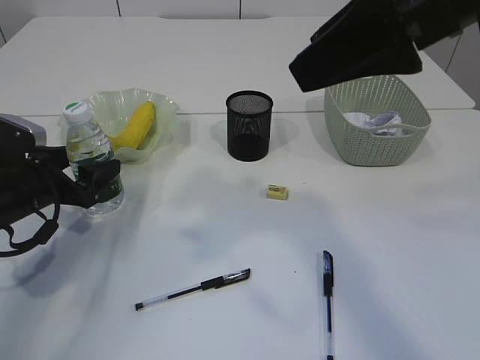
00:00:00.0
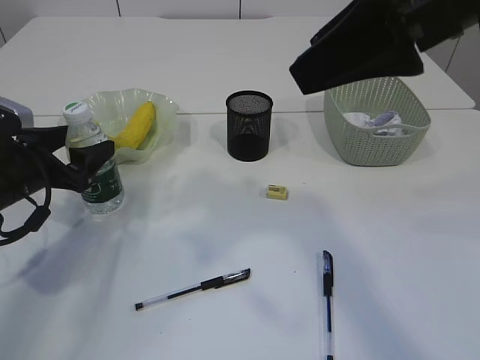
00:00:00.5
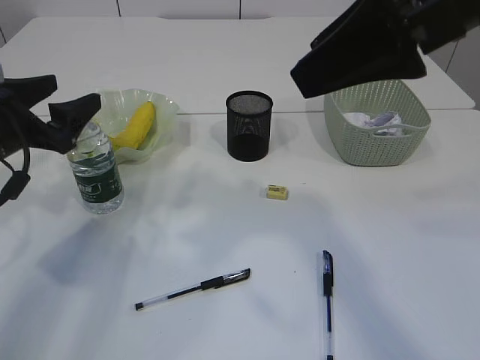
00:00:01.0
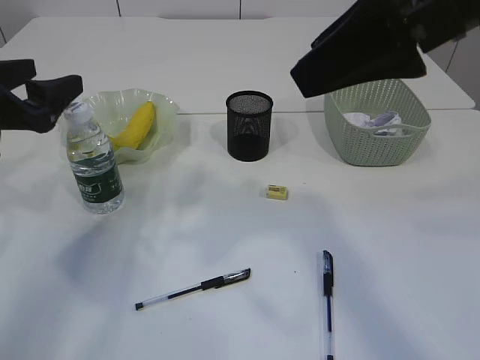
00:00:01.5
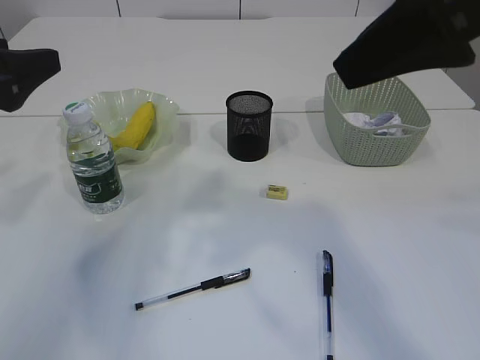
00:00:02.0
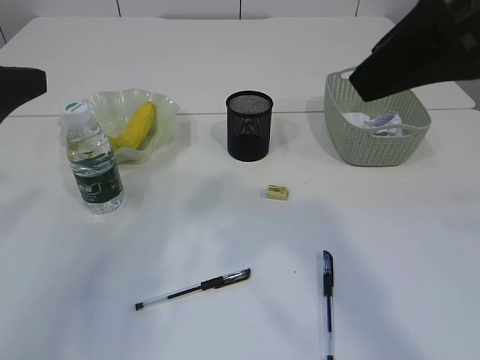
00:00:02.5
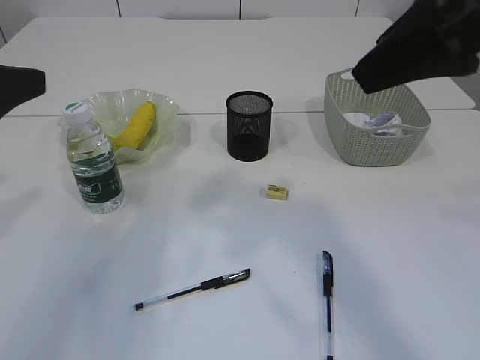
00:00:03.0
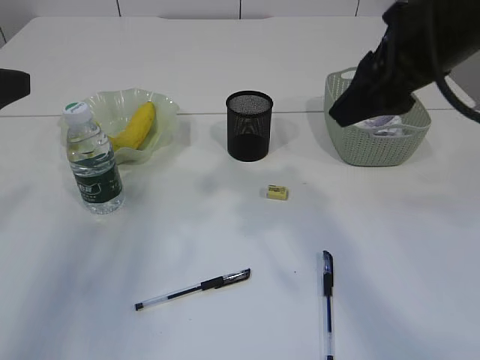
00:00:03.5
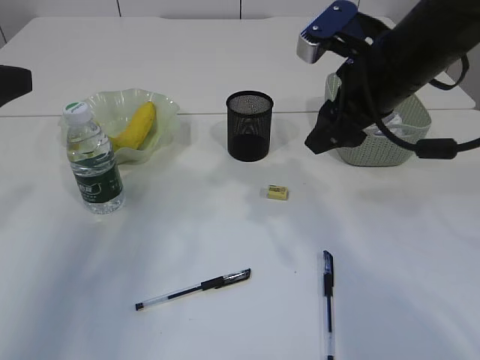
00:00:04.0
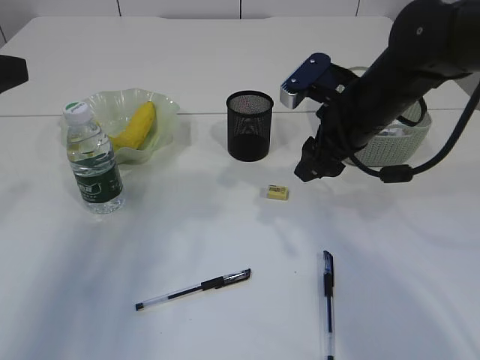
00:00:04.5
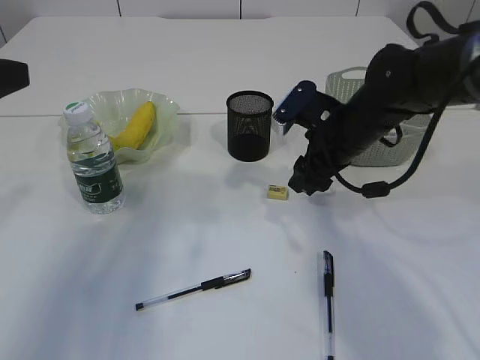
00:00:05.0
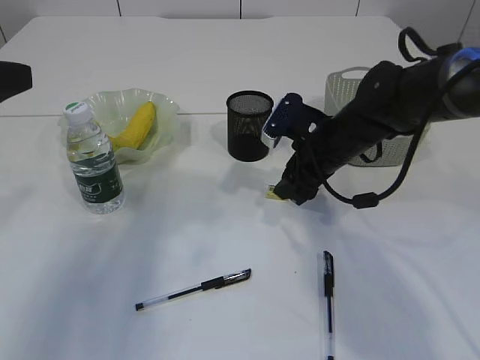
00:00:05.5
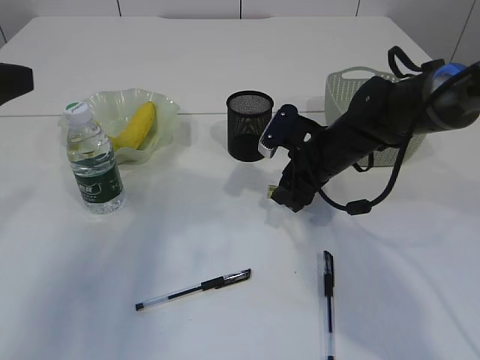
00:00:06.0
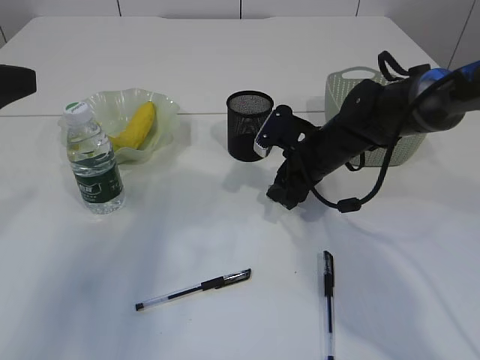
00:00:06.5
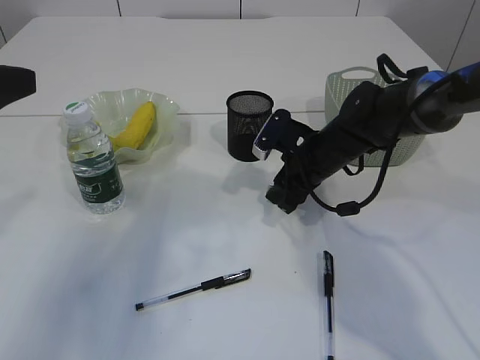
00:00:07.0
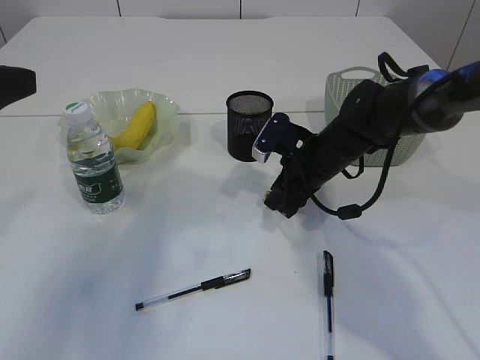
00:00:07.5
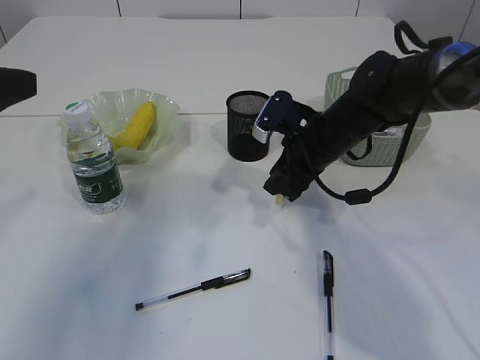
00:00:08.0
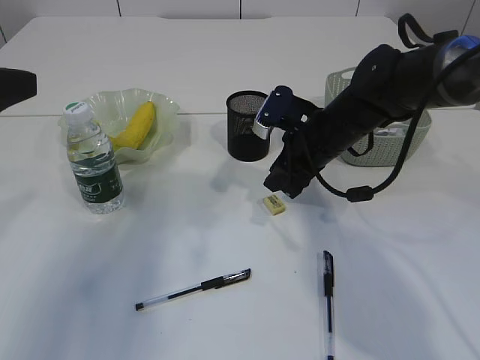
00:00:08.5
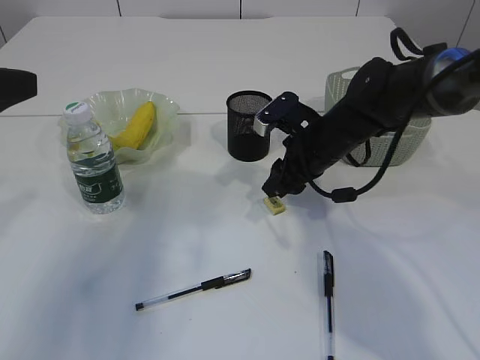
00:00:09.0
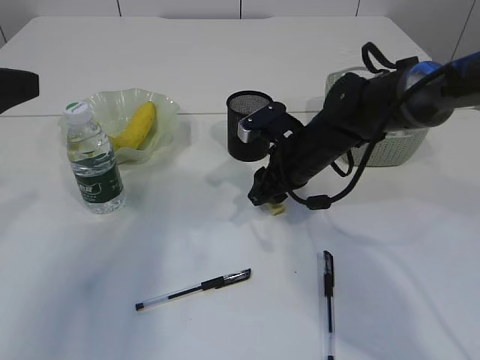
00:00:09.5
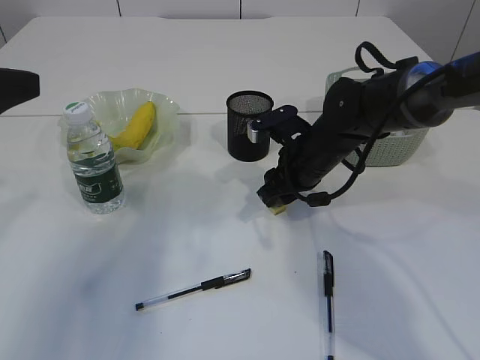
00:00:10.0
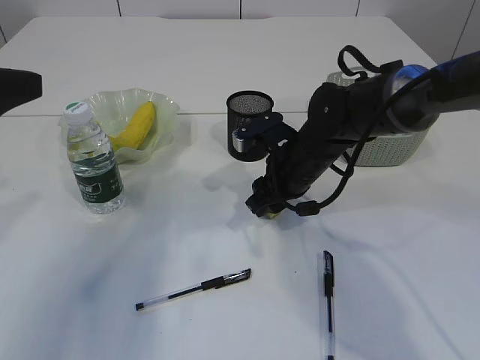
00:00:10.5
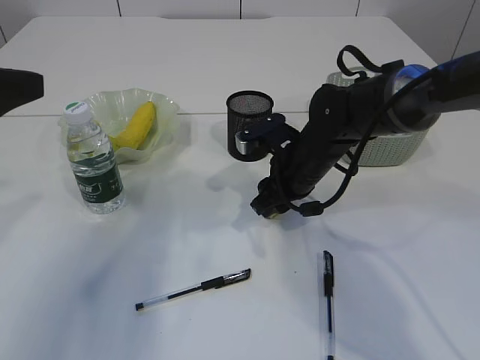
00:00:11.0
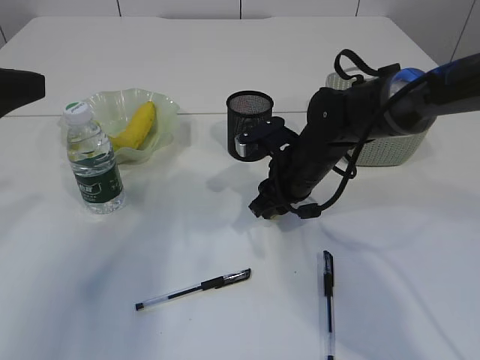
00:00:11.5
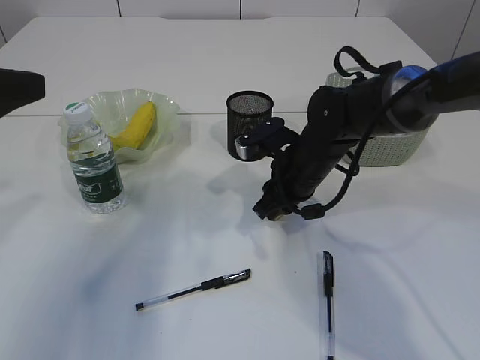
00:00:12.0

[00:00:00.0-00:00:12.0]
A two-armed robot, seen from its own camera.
00:00:00.0 to 00:00:02.0: The left gripper heads upward, covering approximately 20 cm.
00:00:02.0 to 00:00:04.0: The right gripper heads downward and forward, covering roughly 15 cm.
00:00:04.0 to 00:00:06.0: The right gripper is displaced downward and forward by about 15 cm.
00:00:06.0 to 00:00:08.0: The right gripper closes.
00:00:10.0 to 00:00:12.0: There are only small adjustments of the grippers.

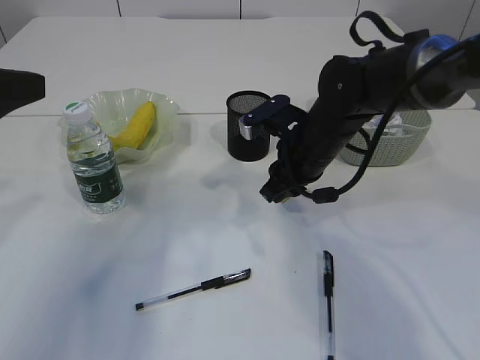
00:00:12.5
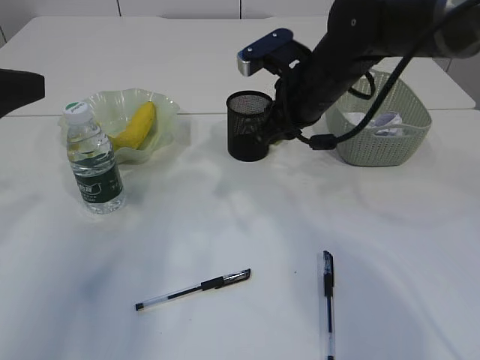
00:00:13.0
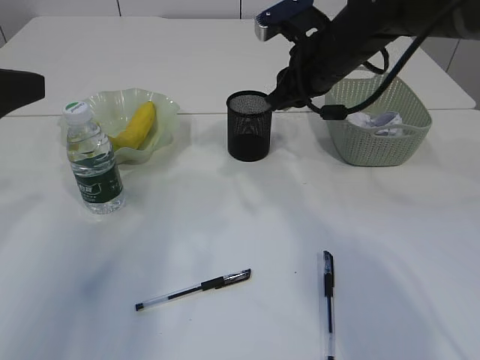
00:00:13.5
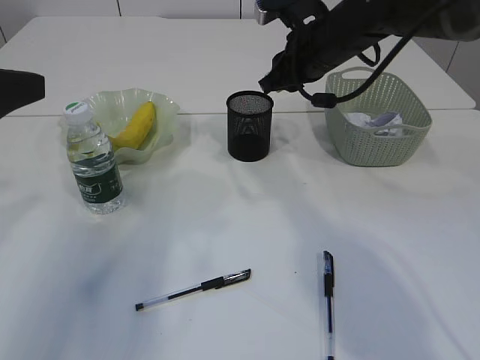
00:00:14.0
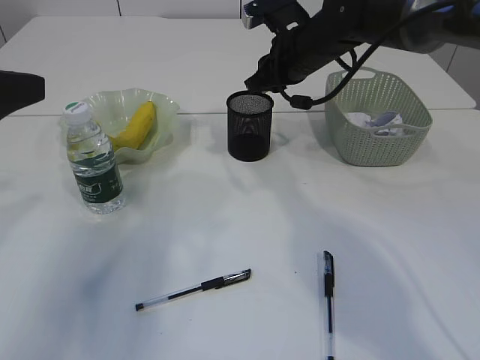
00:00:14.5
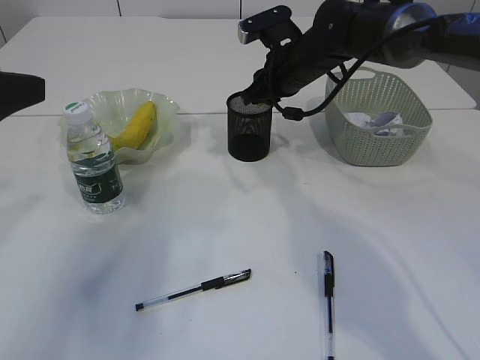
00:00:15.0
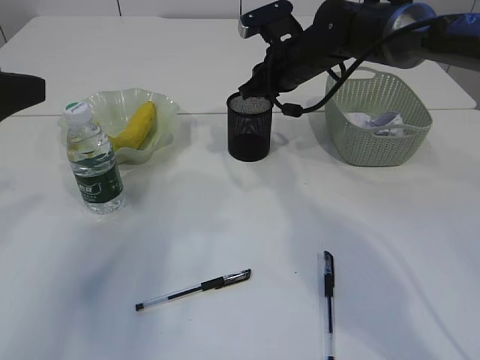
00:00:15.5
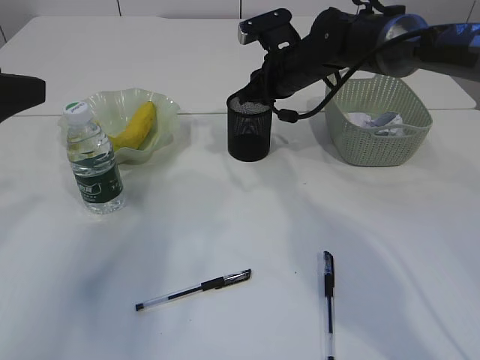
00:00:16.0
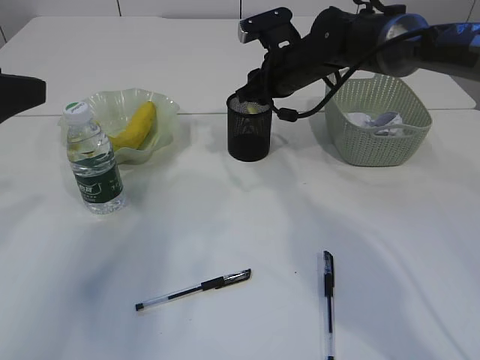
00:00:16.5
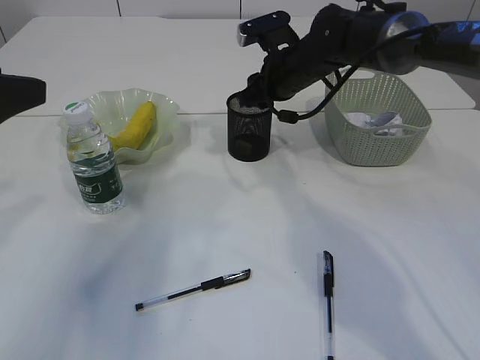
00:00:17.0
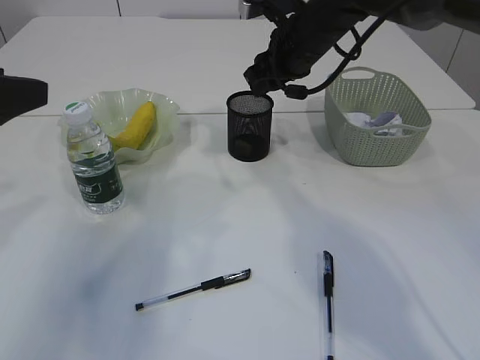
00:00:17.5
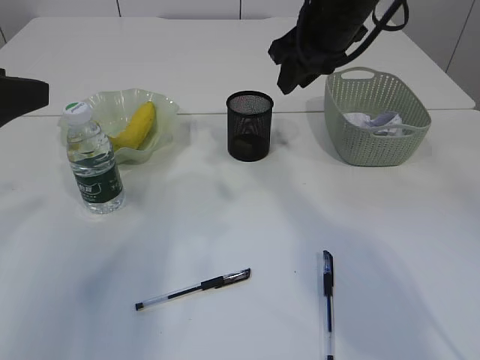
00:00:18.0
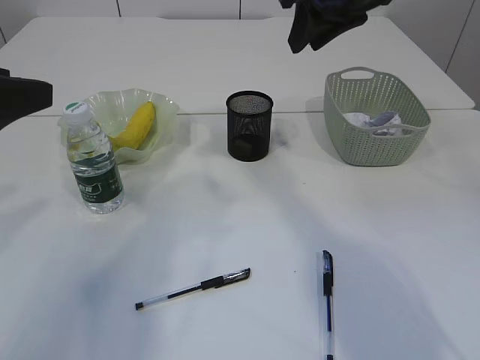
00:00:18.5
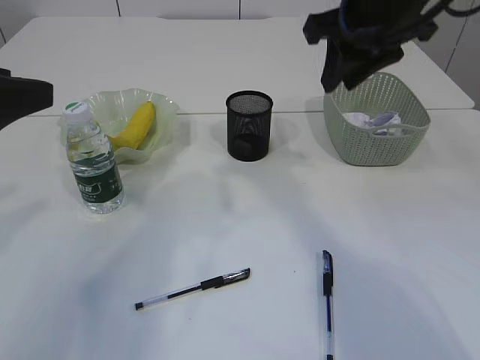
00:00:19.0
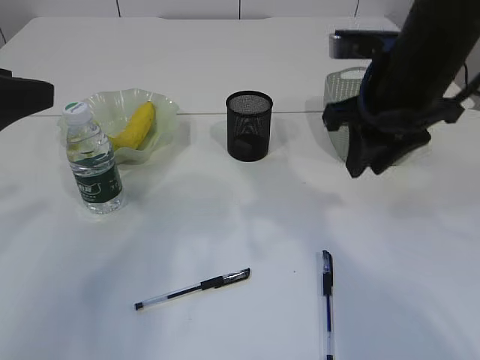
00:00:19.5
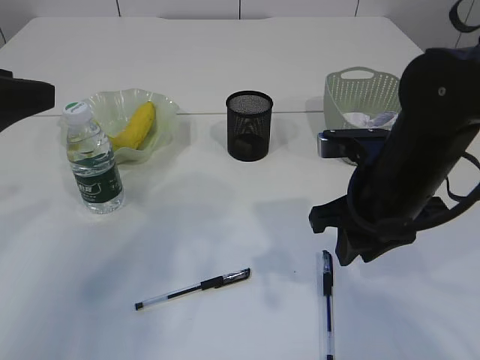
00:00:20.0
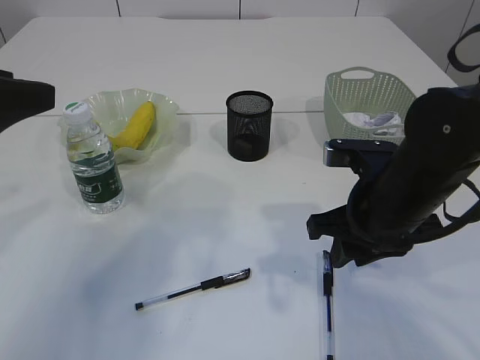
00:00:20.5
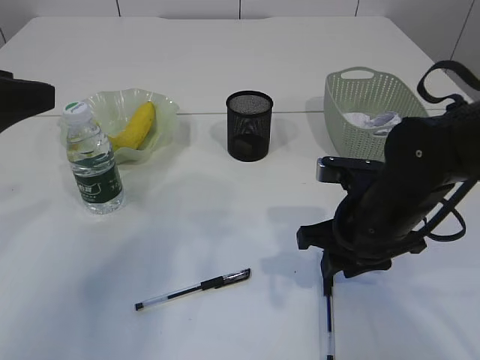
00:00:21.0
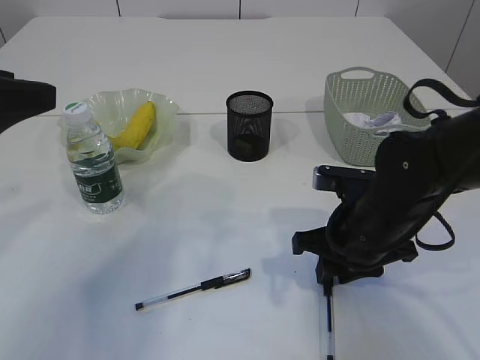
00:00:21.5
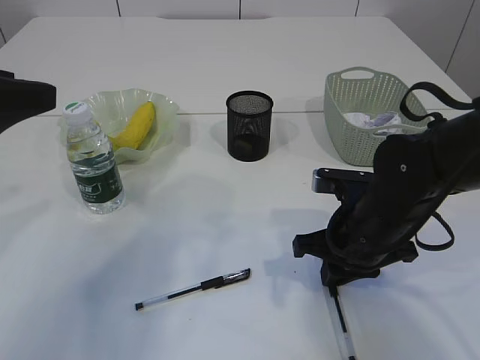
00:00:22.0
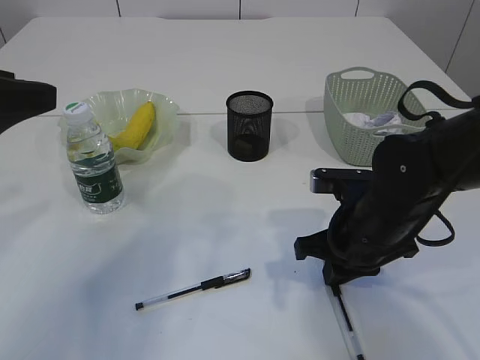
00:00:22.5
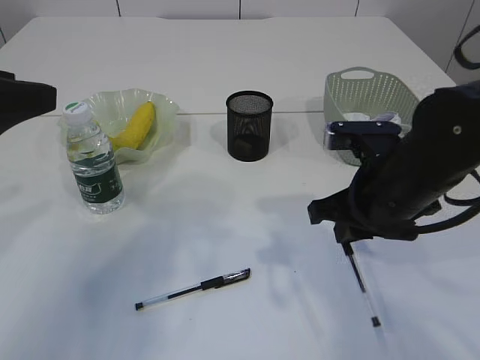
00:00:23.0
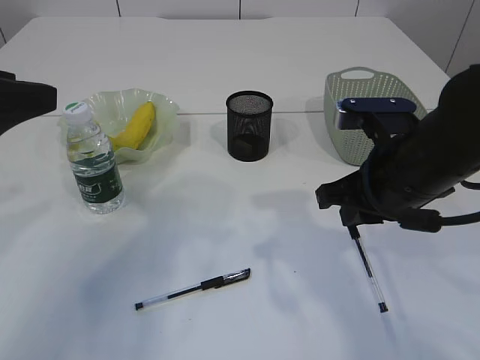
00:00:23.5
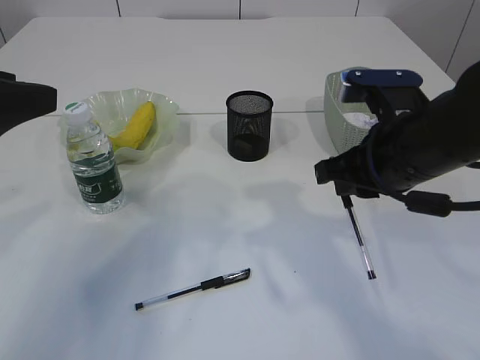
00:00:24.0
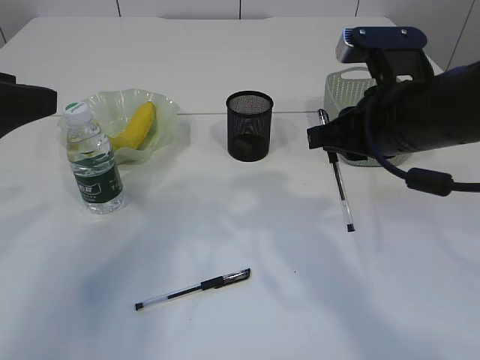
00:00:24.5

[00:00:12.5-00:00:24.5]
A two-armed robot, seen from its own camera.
Step, 00:00:13.0 to 00:00:17.5: Place the eraser into the pen holder.
00:00:12.5 to 00:00:14.5: The right gripper goes approximately 10 cm forward and upward.
00:00:14.5 to 00:00:16.5: The grippers move only a little.
00:00:16.5 to 00:00:18.5: The right gripper is displaced upward and backward by approximately 20 cm.
00:00:18.5 to 00:00:20.5: The right gripper heads downward and backward, covering about 25 cm.
00:00:20.5 to 00:00:22.5: The right gripper is displaced downward by about 5 cm.
00:00:22.5 to 00:00:24.5: The right gripper travels upward by some 15 cm.

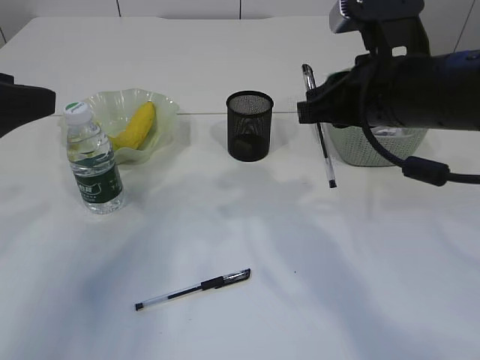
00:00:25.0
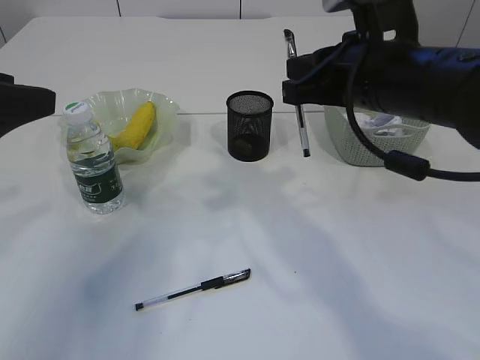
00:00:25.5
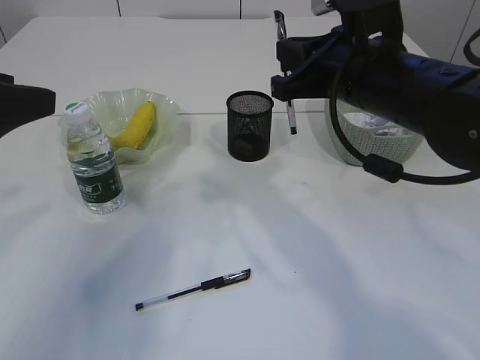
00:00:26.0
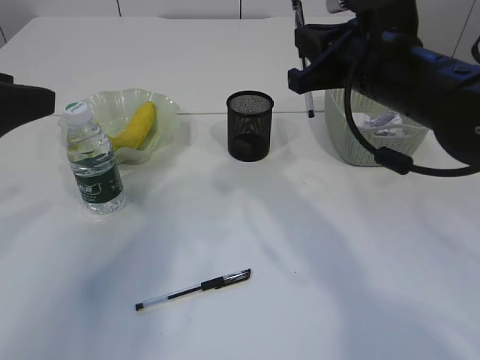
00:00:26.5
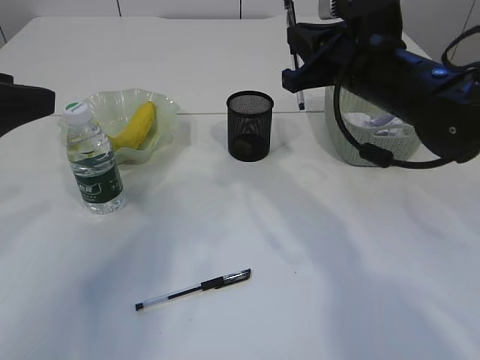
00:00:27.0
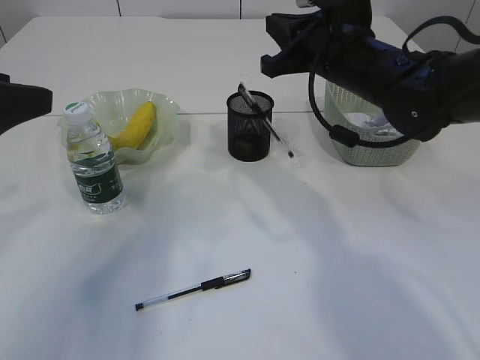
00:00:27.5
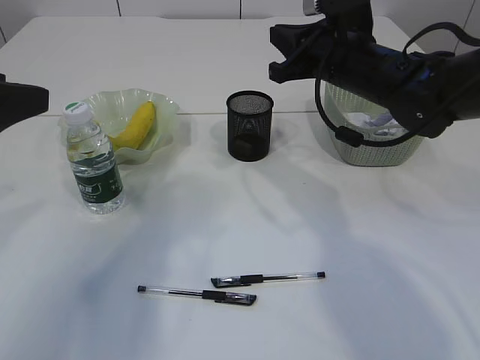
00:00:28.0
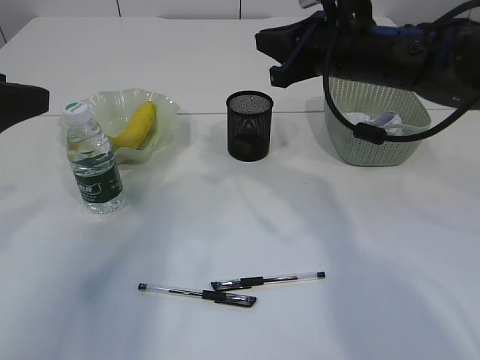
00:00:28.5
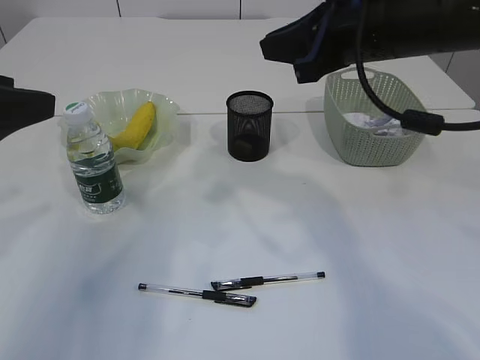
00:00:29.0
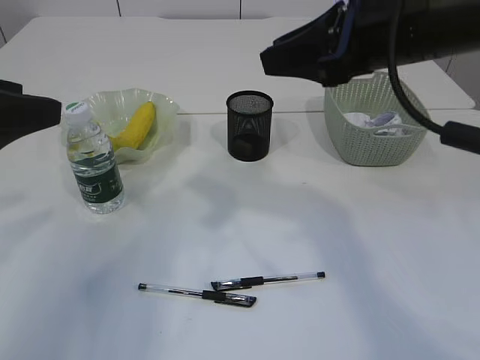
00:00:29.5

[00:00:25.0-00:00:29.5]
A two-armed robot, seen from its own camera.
00:00:25.0 to 00:00:27.0: The right gripper is displaced forward by approximately 5 cm.
00:00:27.0 to 00:00:29.5: The right gripper heads upward and backward, covering about 10 cm, and opens its fingers.
